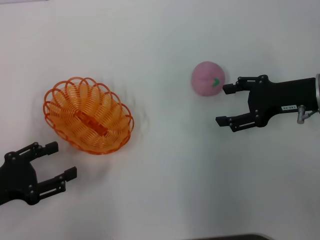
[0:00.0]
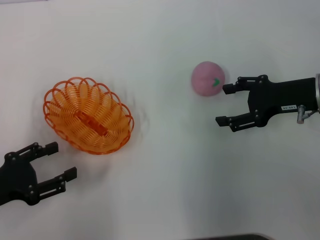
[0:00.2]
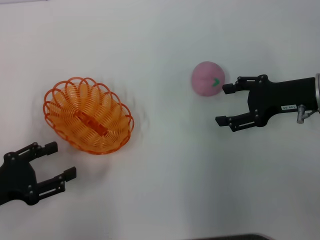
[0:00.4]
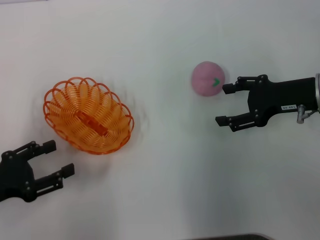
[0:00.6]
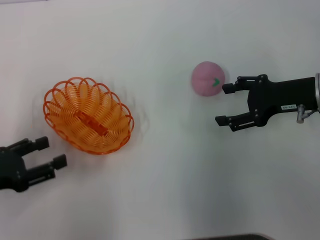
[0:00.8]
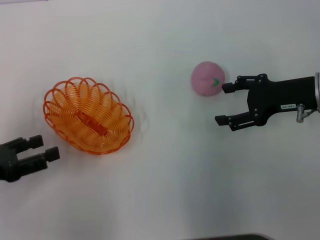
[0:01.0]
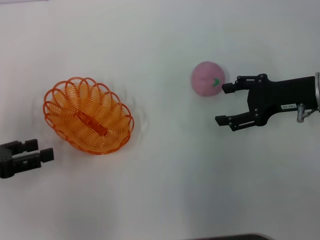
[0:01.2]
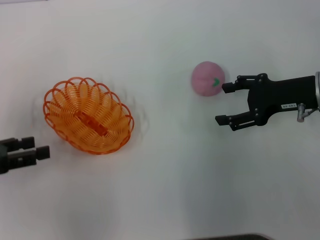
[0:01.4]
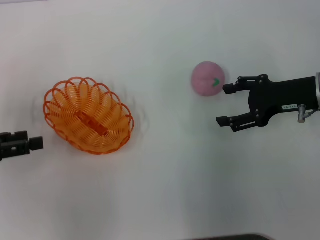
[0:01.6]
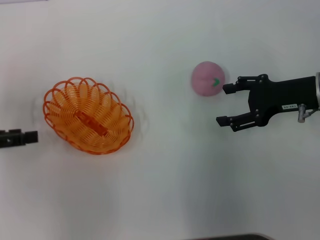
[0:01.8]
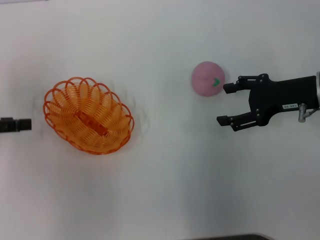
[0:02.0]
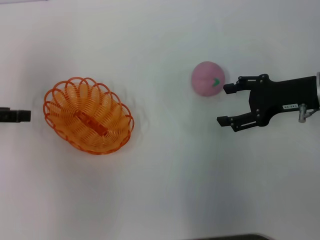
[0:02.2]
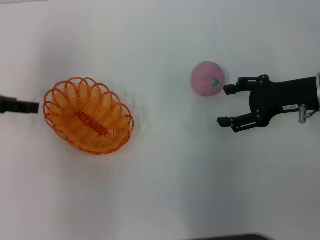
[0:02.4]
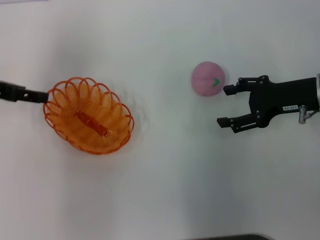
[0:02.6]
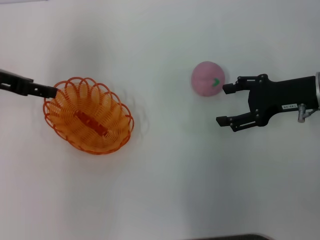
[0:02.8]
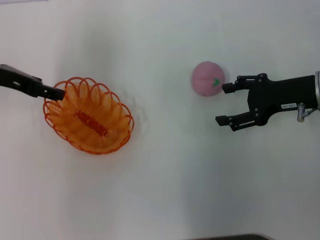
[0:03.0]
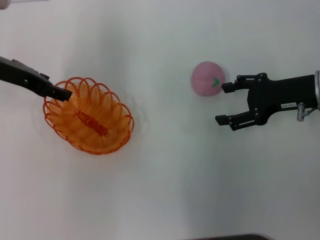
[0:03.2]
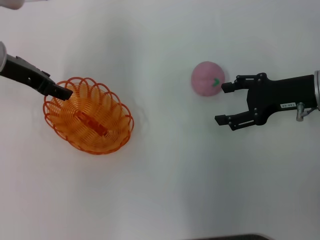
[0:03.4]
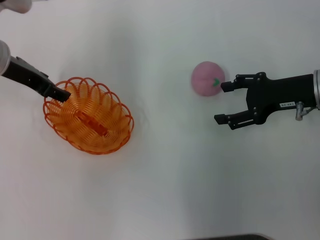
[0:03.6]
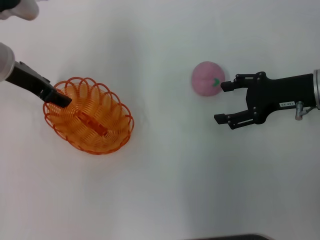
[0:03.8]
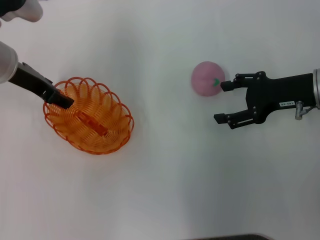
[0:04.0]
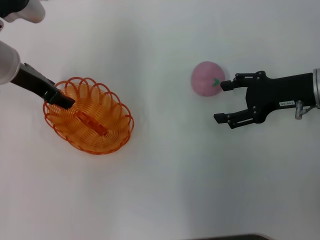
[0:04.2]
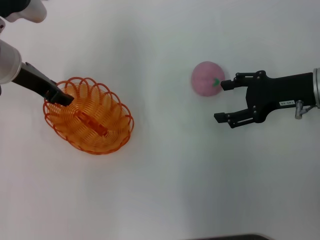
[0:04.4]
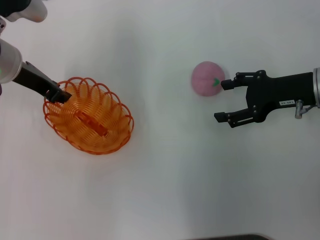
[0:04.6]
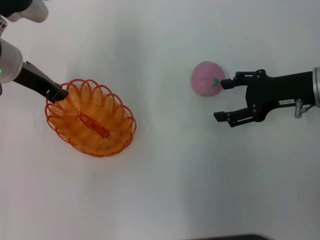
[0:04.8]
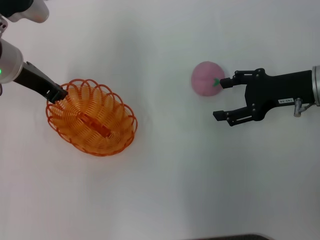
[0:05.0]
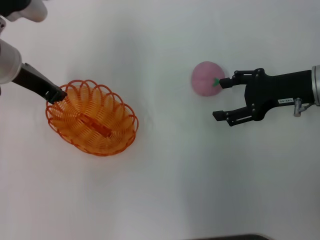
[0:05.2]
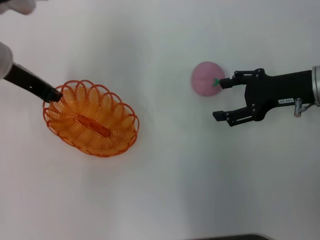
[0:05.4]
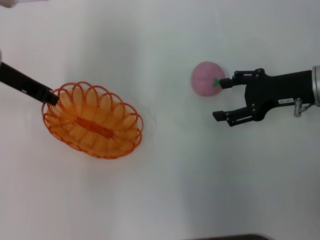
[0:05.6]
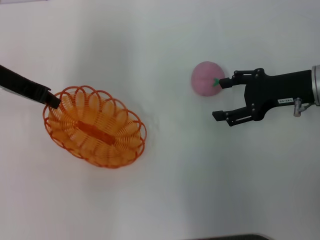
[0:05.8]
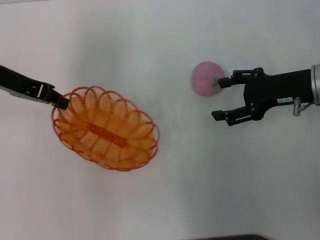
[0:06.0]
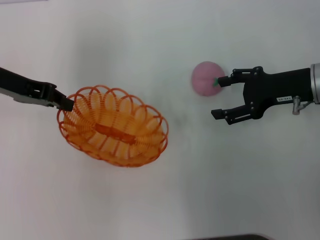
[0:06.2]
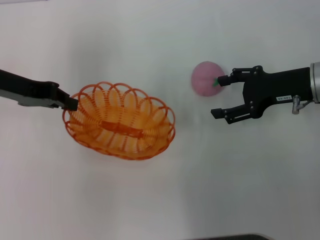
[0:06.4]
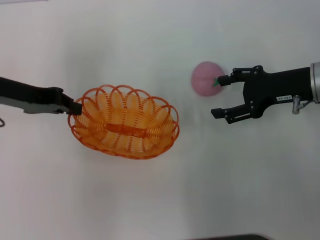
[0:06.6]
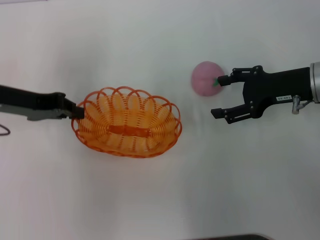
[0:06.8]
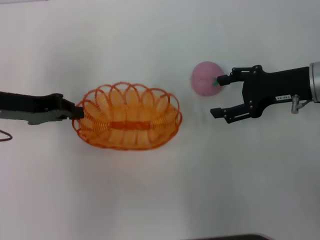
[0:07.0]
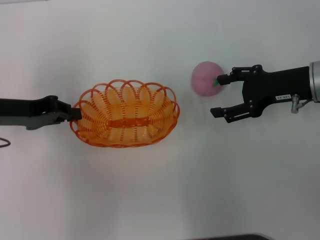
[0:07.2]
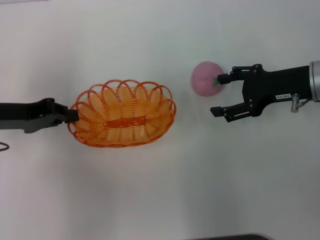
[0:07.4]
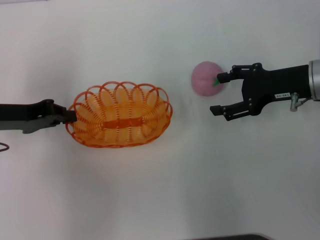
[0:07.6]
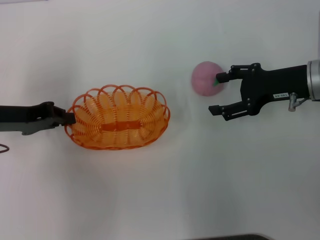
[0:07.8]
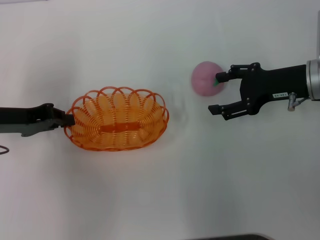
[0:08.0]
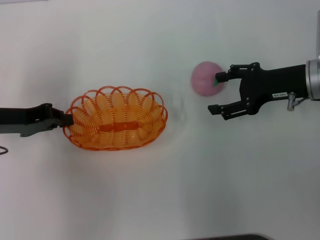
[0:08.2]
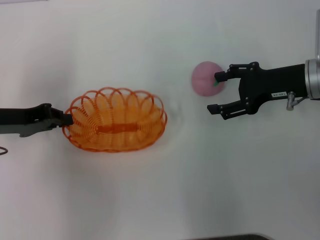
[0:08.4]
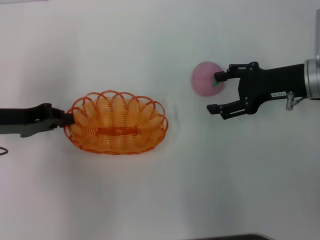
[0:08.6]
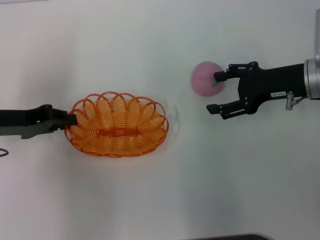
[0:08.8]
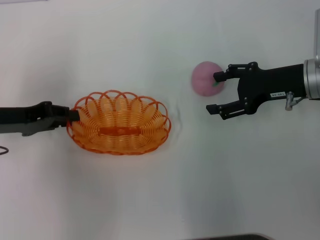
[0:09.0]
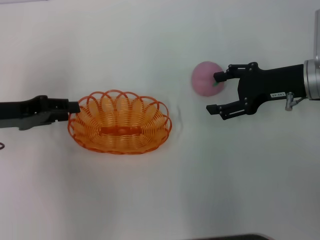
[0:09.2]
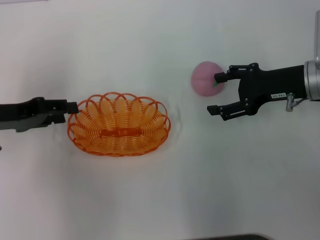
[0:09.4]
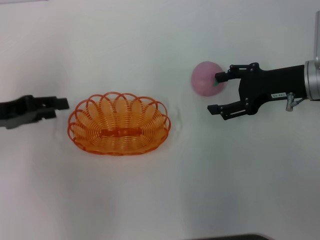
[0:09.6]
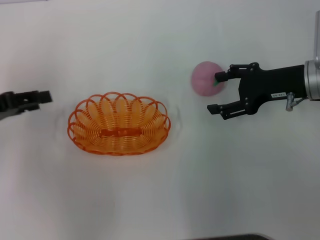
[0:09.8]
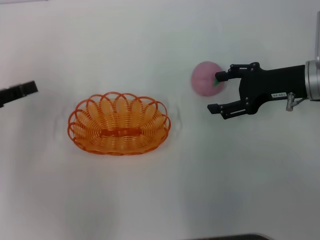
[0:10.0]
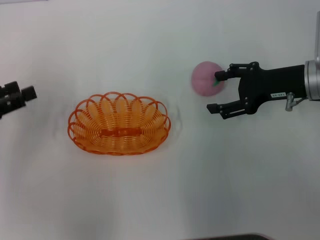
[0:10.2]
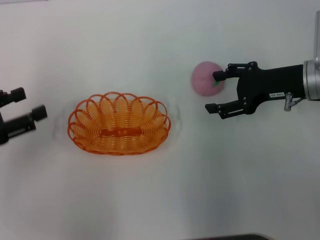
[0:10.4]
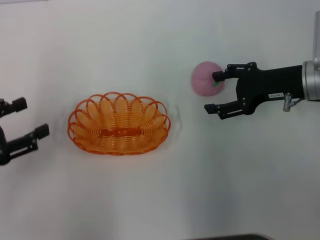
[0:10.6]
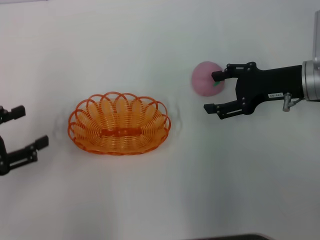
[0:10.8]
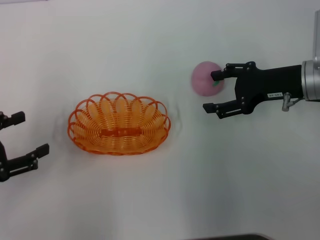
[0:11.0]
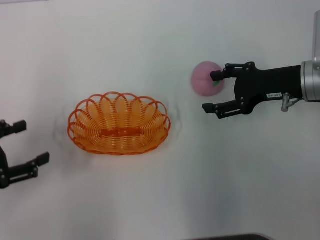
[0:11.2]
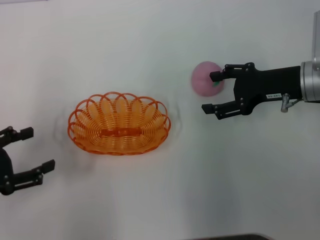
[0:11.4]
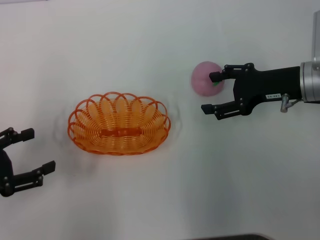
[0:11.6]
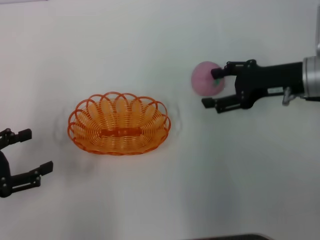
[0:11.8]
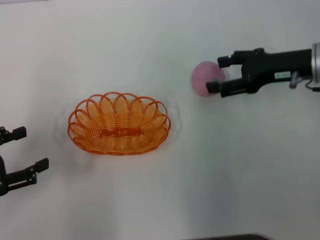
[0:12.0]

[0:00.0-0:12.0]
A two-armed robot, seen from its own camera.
Step, 0:00.0 to 0:05.6: Pick up the basket with the left gripper.
Step, 0:05.8 to 0:09.6: Place the basket in the center of view with the left gripper.
0:00.0 to 0:01.6: The left gripper moves forward and upward, approximately 10 cm.
0:01.6 to 0:03.0: The left gripper heads forward, to the right and upward, covering approximately 15 cm.
0:03.0 to 0:04.4: The left gripper changes place by about 5 cm.
0:04.4 to 0:06.0: The left gripper closes up.
0:06.0 to 0:07.6: The left gripper is displaced downward and backward by some 10 cm.
0:07.6 to 0:09.0: The two grippers keep their place.
0:09.0 to 0:10.4: The left gripper is displaced backward and to the left by roughly 10 cm, and opens up.
0:10.4 to 0:12.0: The left gripper moves approximately 5 cm.

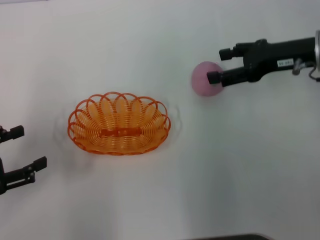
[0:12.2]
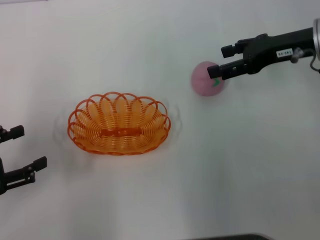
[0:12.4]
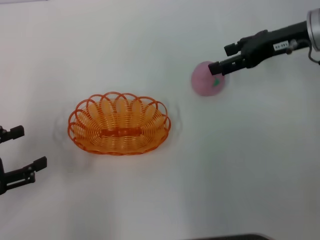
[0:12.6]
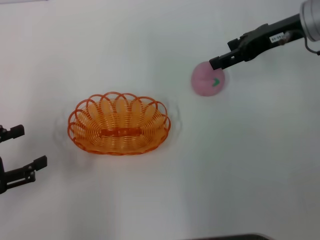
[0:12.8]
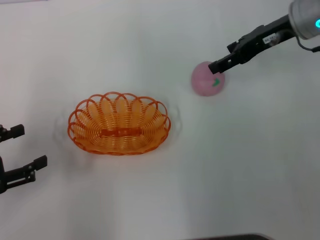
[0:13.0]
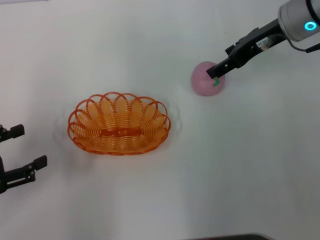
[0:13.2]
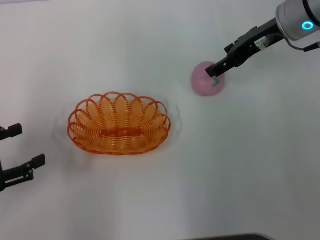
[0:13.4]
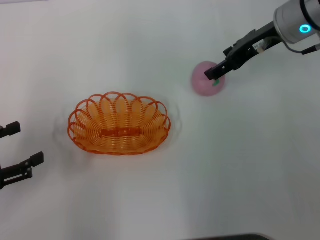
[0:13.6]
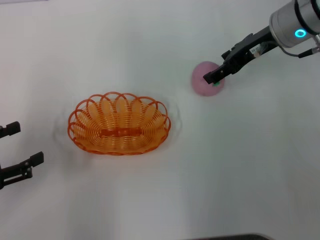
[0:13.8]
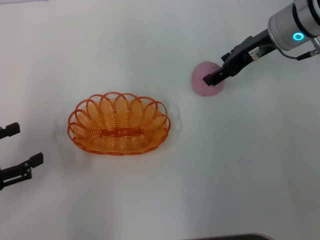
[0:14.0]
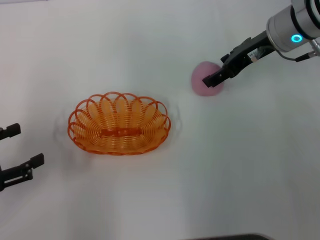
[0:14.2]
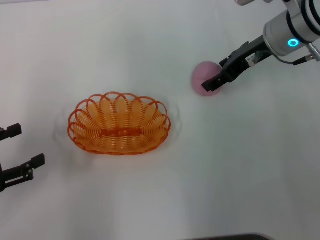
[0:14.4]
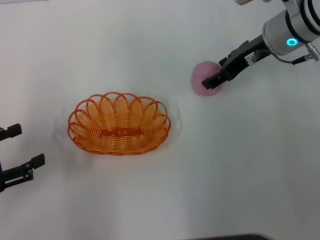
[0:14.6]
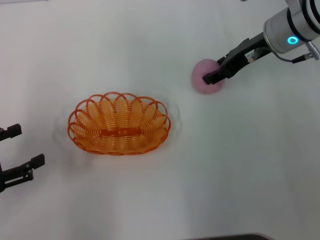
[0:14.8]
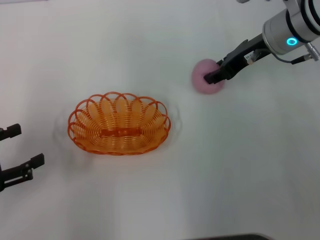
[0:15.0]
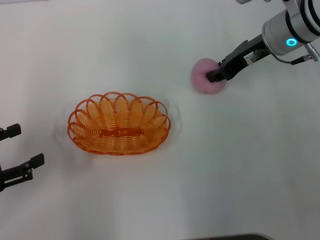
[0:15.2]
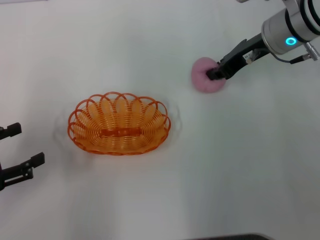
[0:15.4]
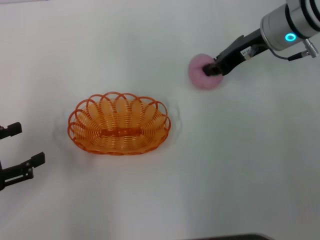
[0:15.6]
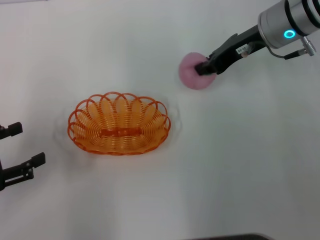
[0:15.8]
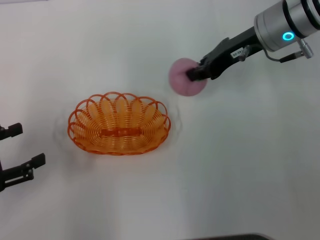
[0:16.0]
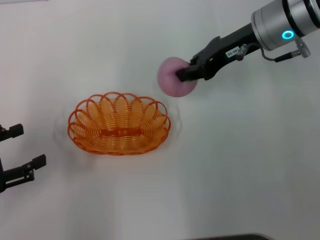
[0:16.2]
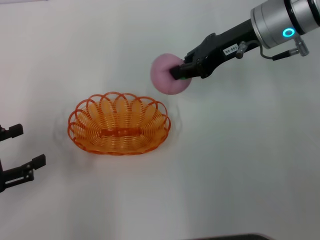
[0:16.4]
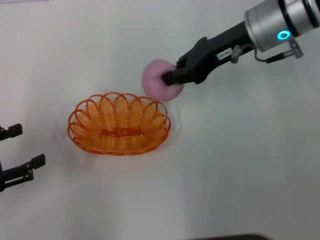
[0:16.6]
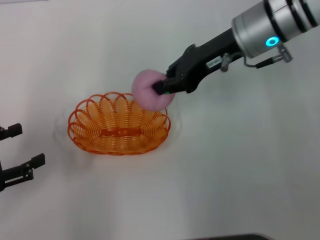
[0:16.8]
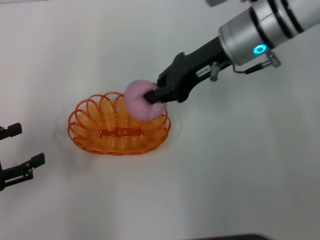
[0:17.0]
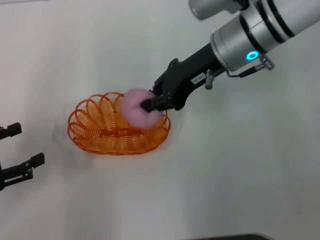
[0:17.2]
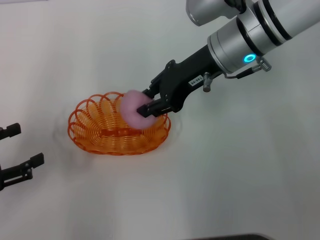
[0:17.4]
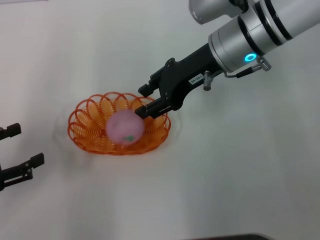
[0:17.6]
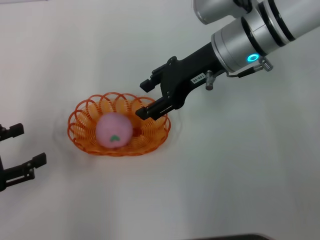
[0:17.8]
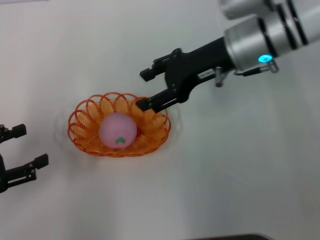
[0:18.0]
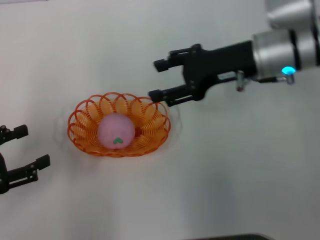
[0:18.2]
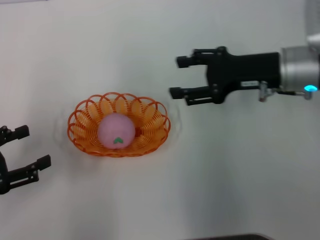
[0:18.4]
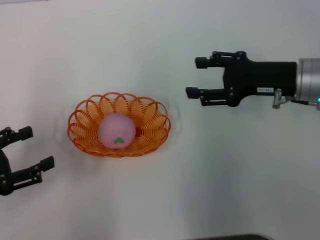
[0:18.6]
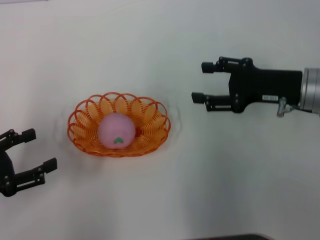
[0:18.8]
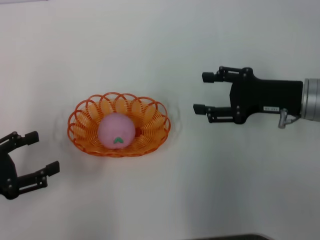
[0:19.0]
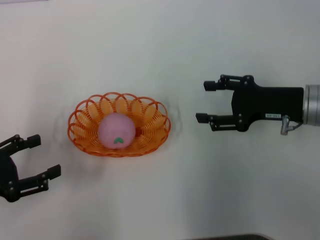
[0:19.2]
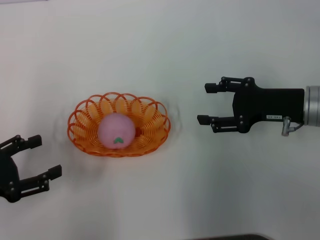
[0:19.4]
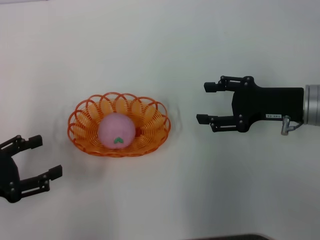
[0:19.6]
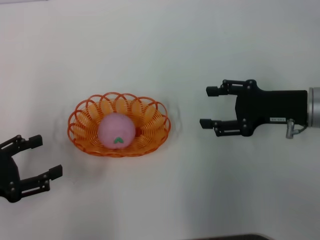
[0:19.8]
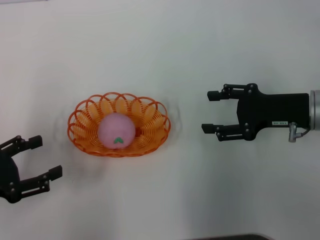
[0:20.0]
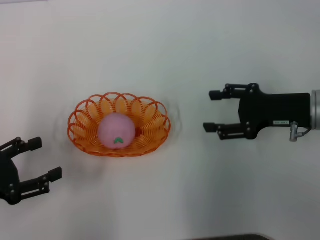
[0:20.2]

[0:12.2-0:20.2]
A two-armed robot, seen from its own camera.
Step, 0:12.2 to 0:16.0: Pick up the peach with the right gripper.
Step, 0:16.4 to 0:18.0: Place the peach into the basket with the right gripper.
0:12.2 to 0:13.8: The right gripper is displaced to the left and forward by approximately 10 cm.
0:13.8 to 0:15.4: The right gripper closes.
0:15.4 to 0:17.0: The right gripper moves to the left, roughly 5 cm.
0:17.0 to 0:18.6: The right gripper travels to the right, downward and backward by approximately 15 cm, and opens up.
0:18.6 to 0:20.2: The grippers move only a little.
